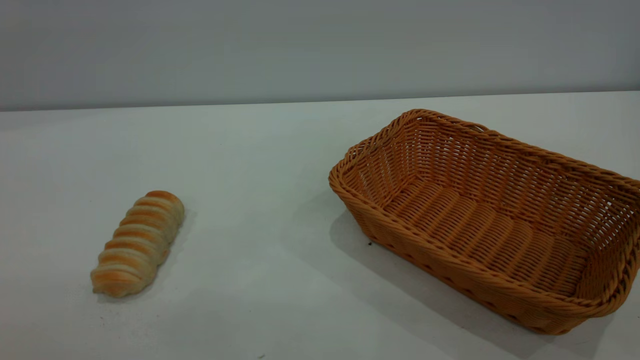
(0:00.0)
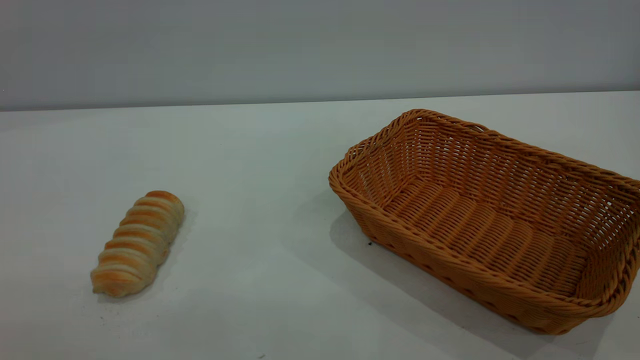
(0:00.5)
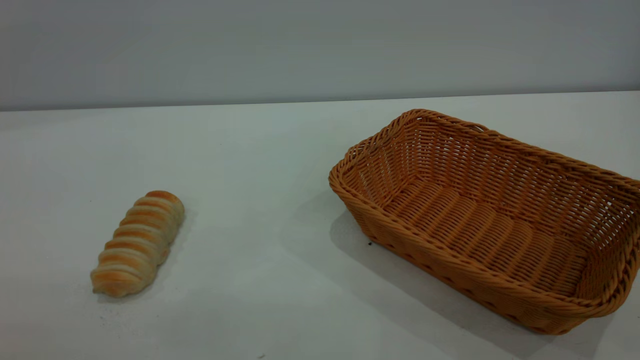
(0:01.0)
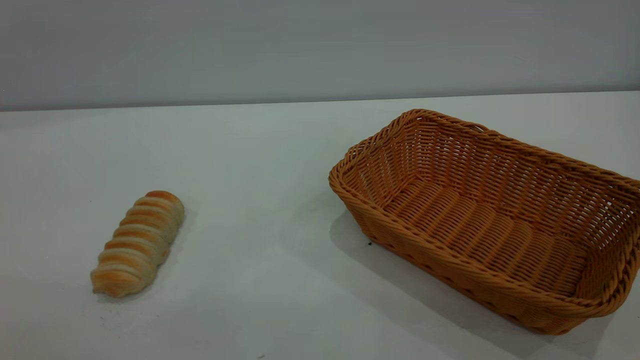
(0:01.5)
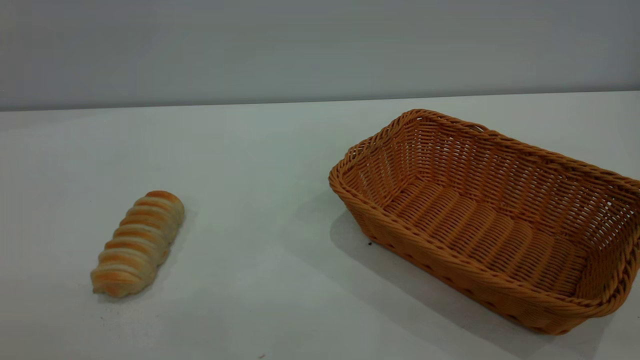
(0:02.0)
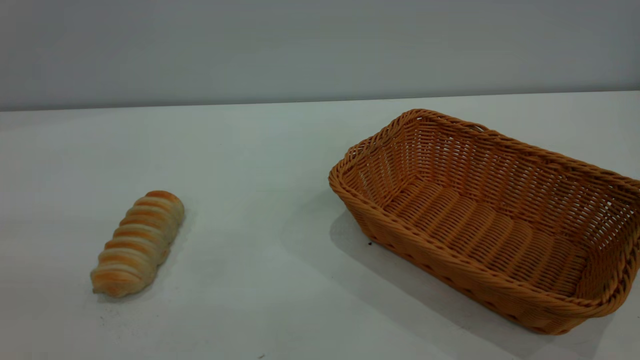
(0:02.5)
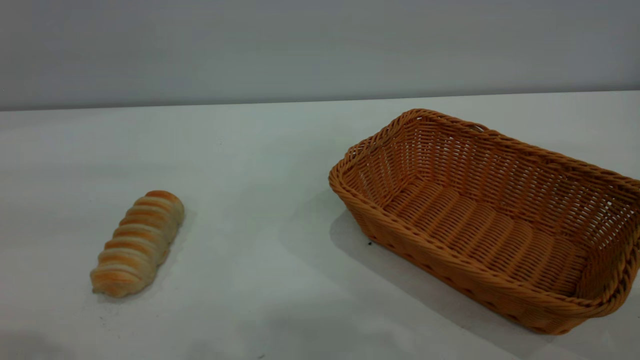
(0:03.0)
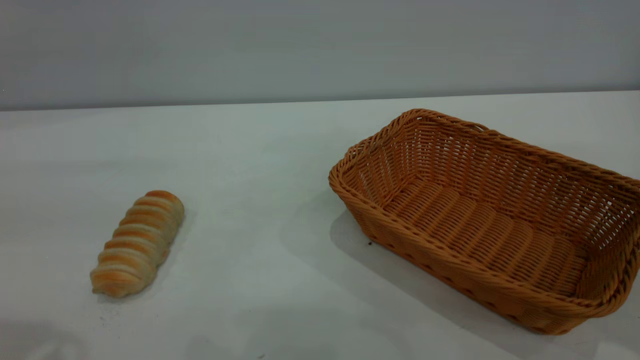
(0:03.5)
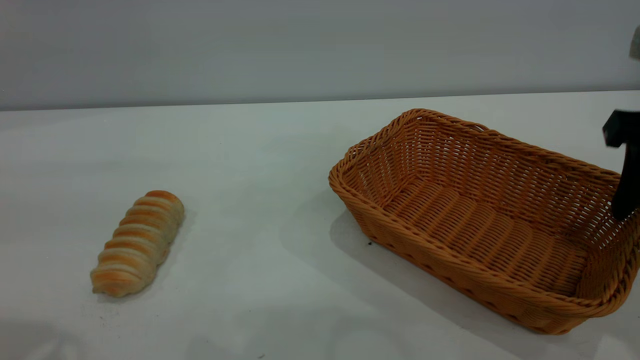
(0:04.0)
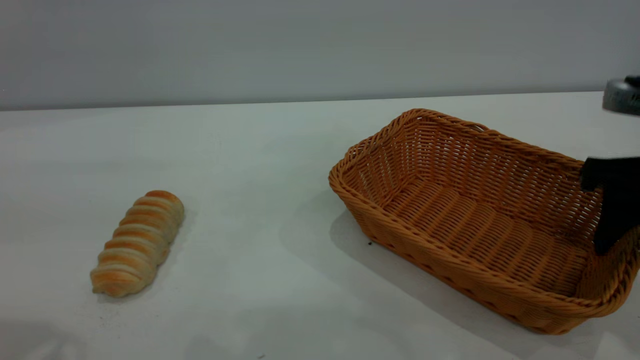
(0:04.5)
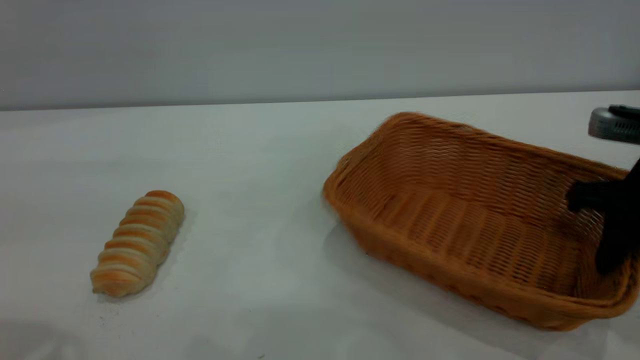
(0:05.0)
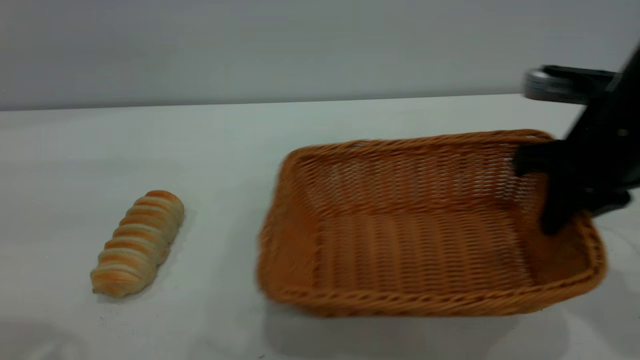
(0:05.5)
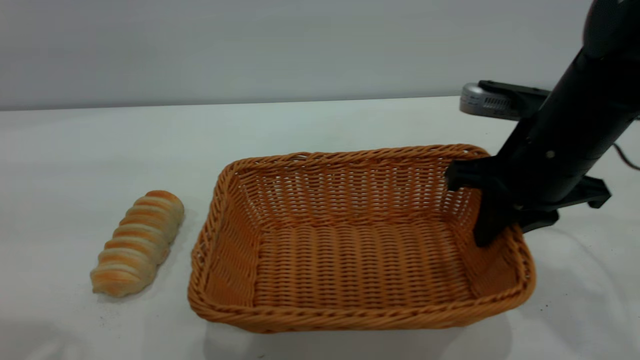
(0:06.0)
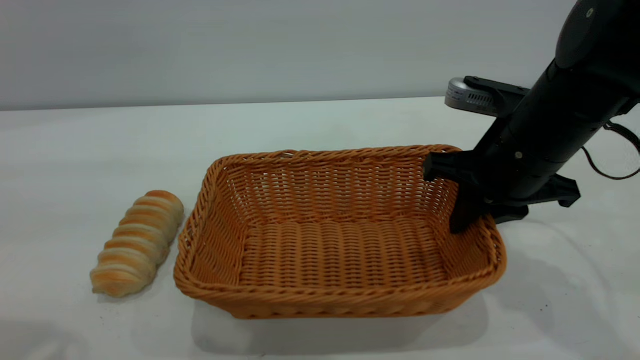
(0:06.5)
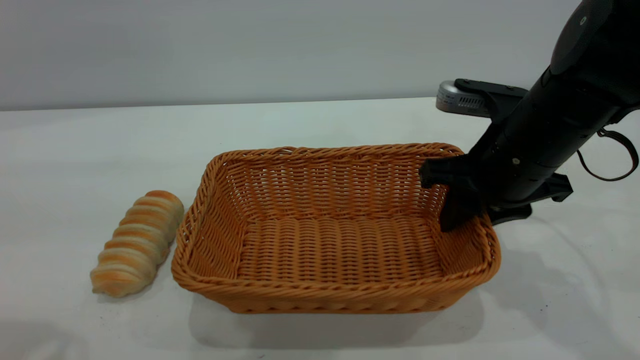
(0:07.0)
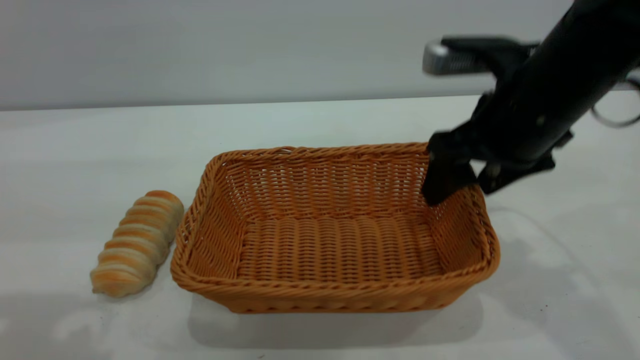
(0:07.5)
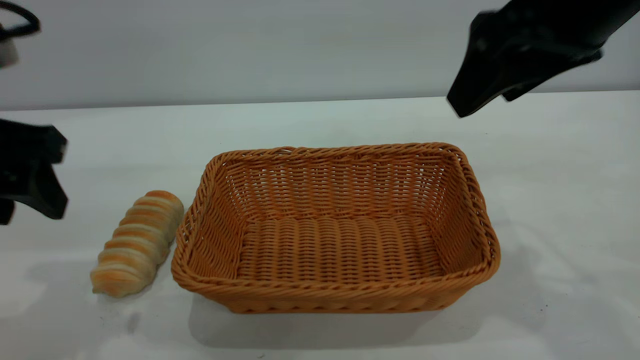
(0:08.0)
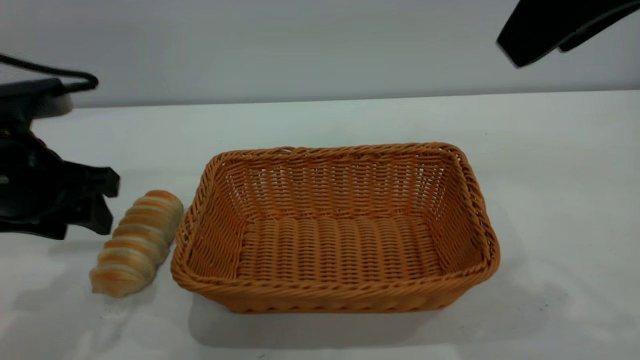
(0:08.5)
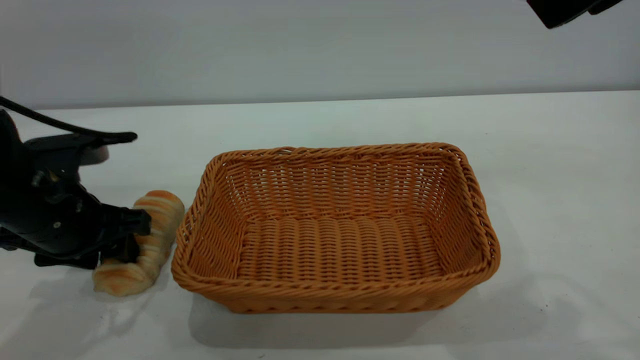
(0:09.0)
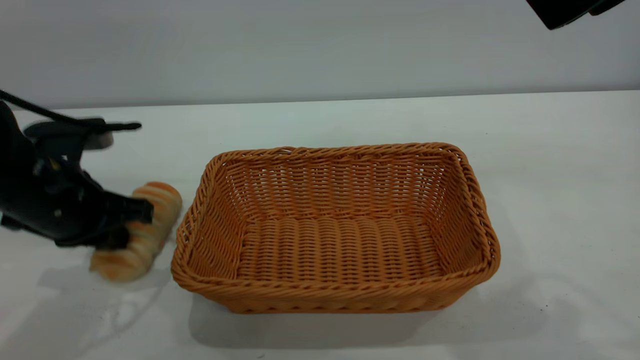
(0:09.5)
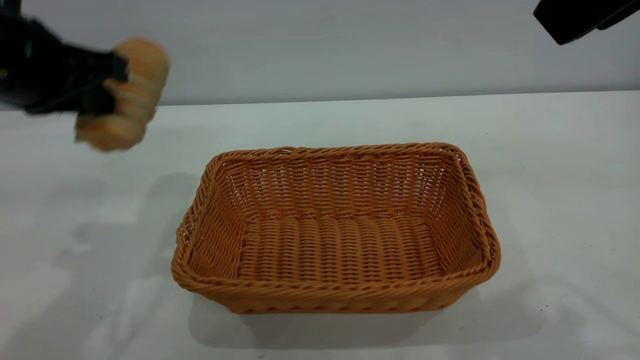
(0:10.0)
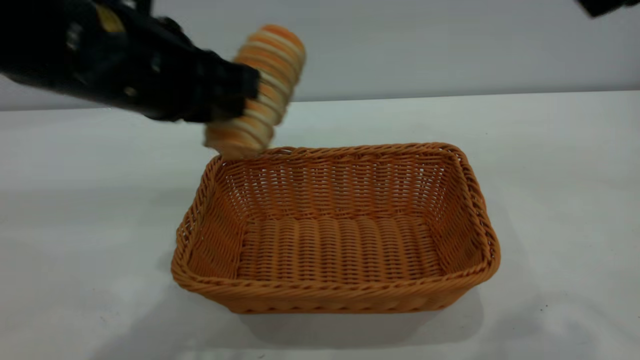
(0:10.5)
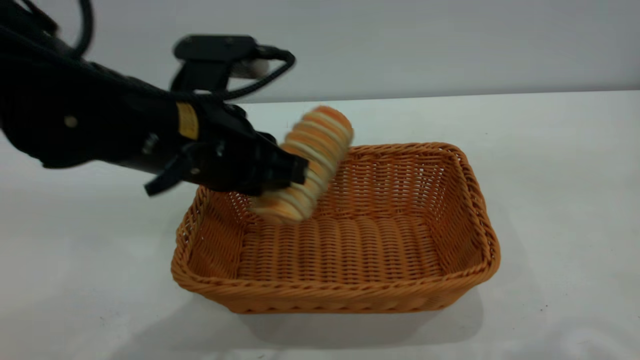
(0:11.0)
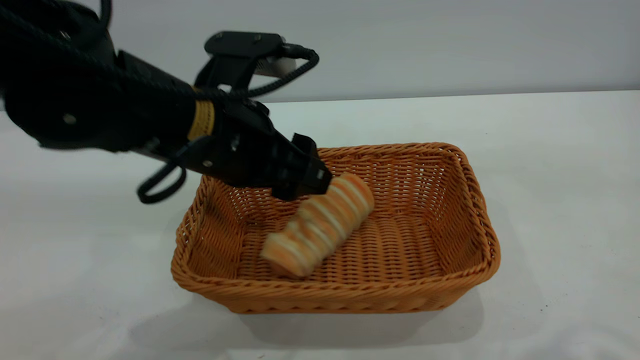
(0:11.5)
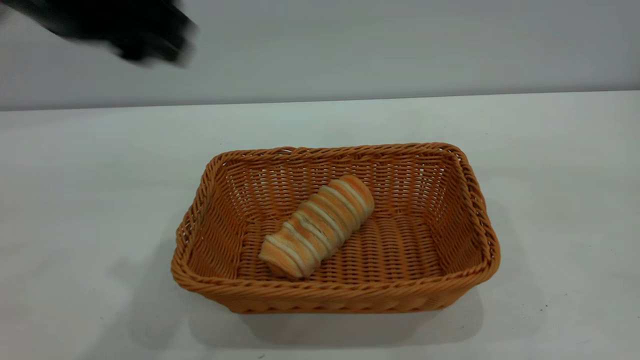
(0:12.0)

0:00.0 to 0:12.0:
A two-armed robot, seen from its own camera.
Task of the whole recording: One hand grasps the yellow basket and places it in the middle of the table, while the other hand picks up the long bread and puts it into the yellow basket.
Step, 0:00.0 to 0:07.5: Move the basket to the center of view.
Step, 0:10.0 to 0:11.5: place the bread into the basket.
0:02.0 to 0:04.0: The right gripper goes some 30 cm forward and downward.
0:04.0 to 0:06.0: The right gripper is displaced to the left and downward by roughly 10 cm, and closes.
0:06.0 to 0:08.0: The left gripper goes roughly 15 cm downward and forward. Meanwhile the right gripper heads upward, covering some 15 cm, and opens.
0:08.0 to 0:10.0: The right gripper is displaced upward and backward by roughly 10 cm. The left gripper travels downward and back again, about 10 cm each way, and closes up.
0:10.0 to 0:12.0: The left gripper goes roughly 10 cm upward and to the right, and opens its fingers; the right gripper travels backward, upward and to the right by about 10 cm.

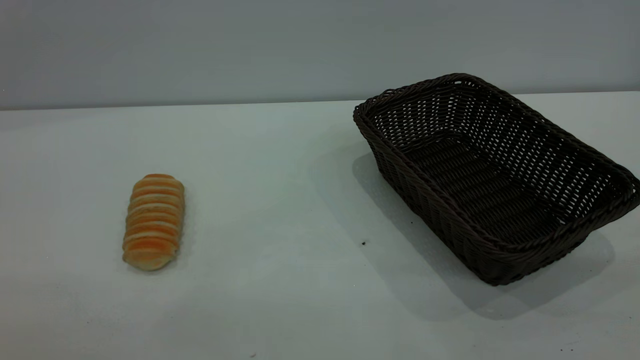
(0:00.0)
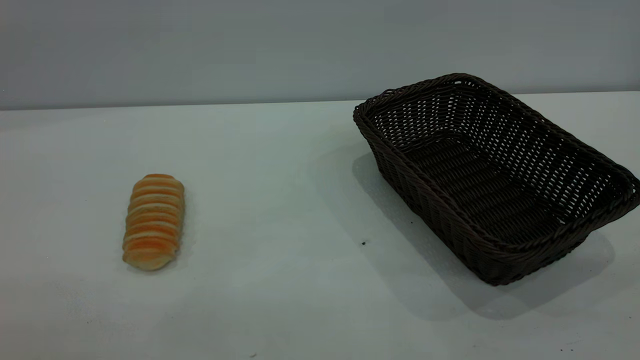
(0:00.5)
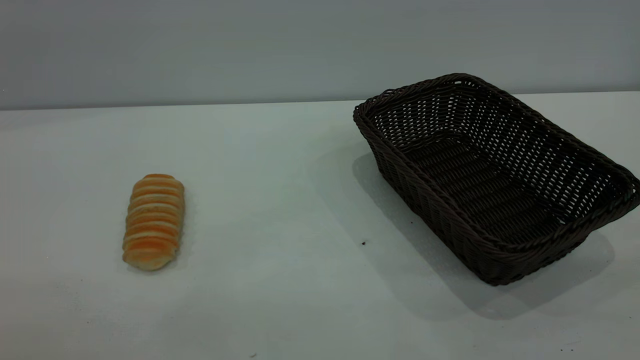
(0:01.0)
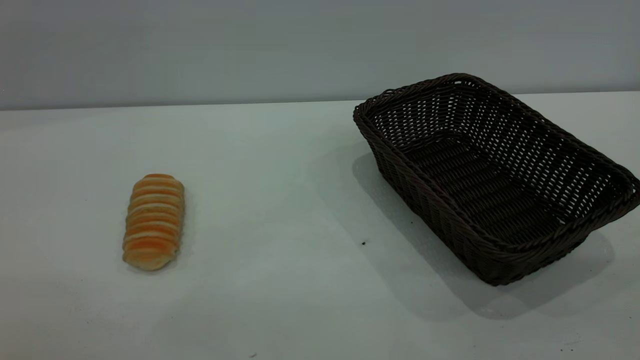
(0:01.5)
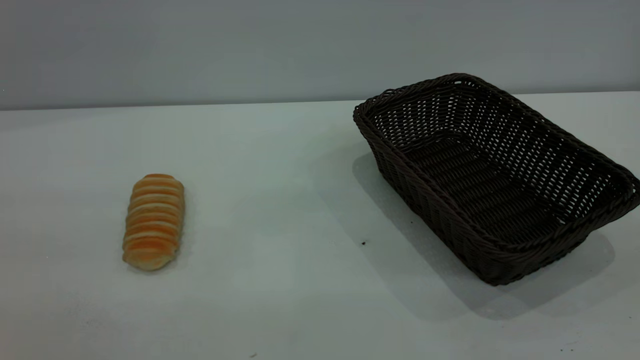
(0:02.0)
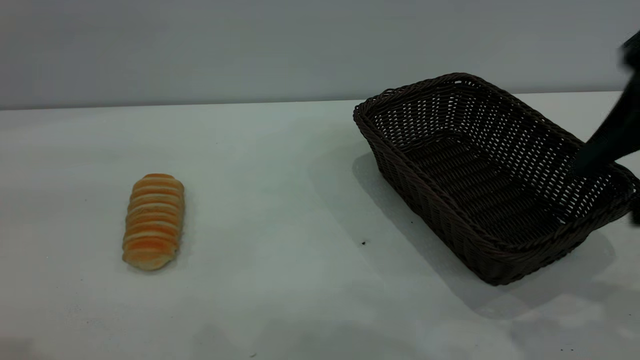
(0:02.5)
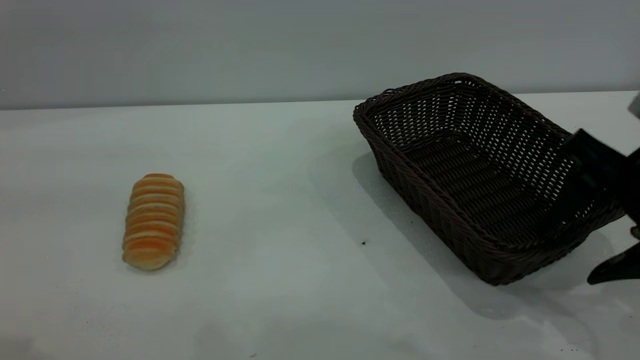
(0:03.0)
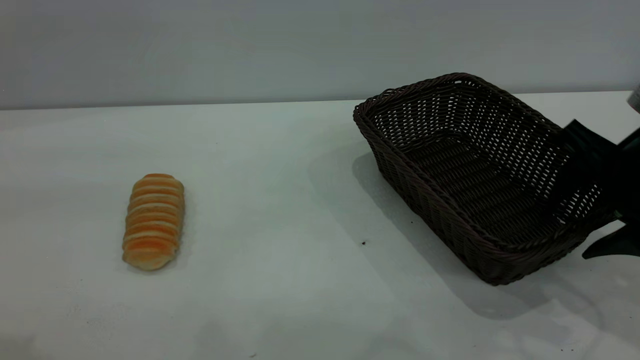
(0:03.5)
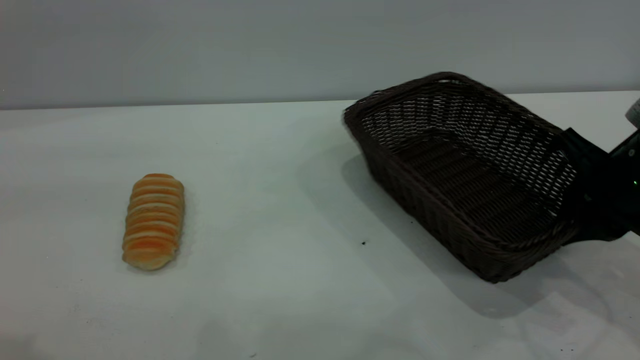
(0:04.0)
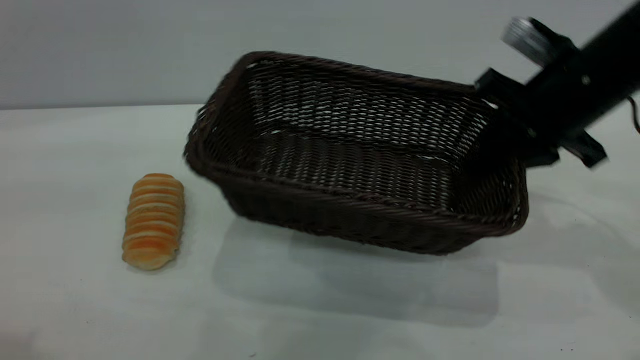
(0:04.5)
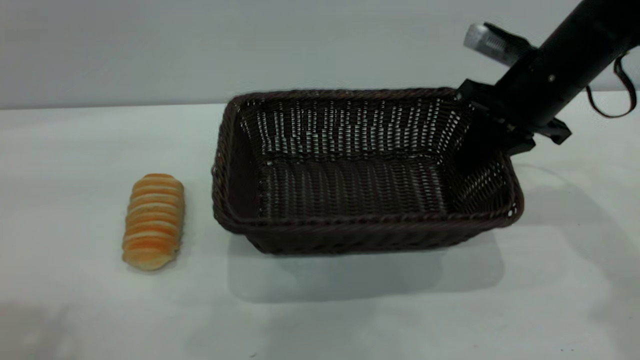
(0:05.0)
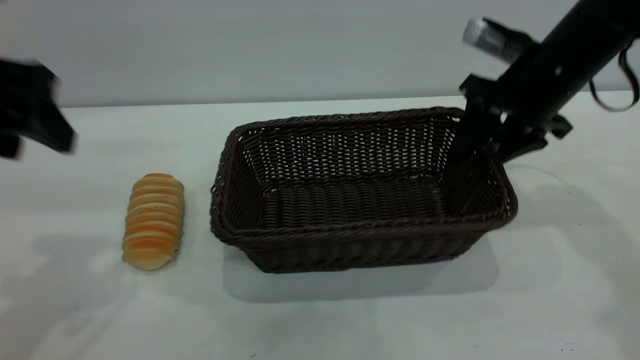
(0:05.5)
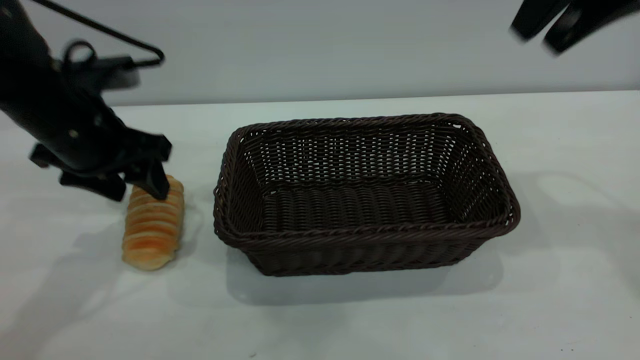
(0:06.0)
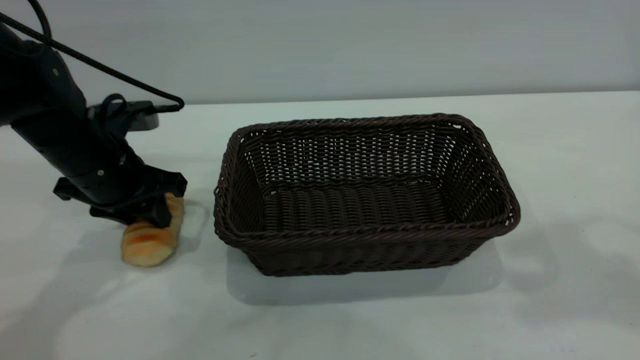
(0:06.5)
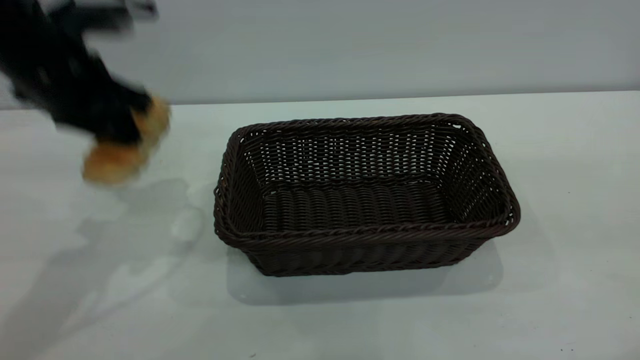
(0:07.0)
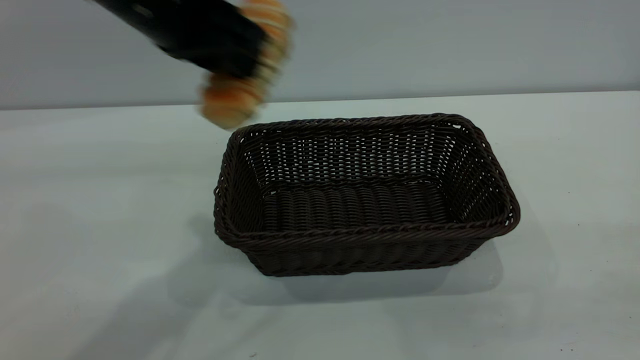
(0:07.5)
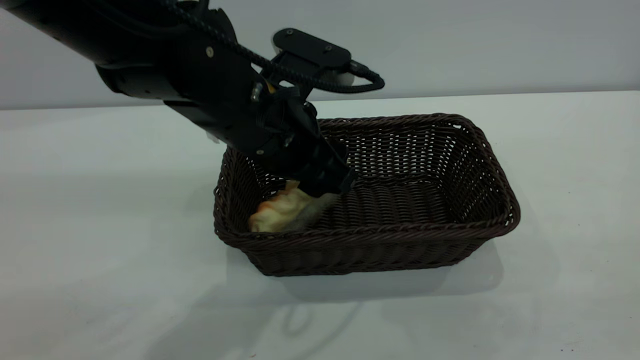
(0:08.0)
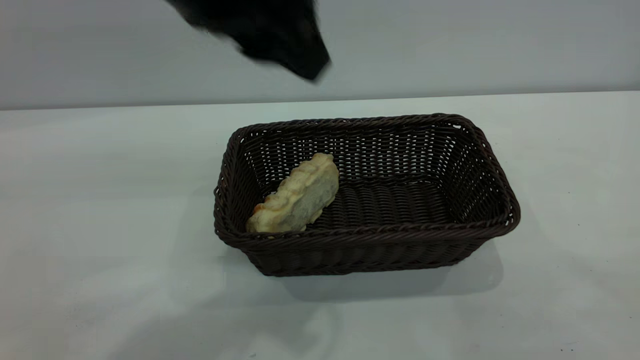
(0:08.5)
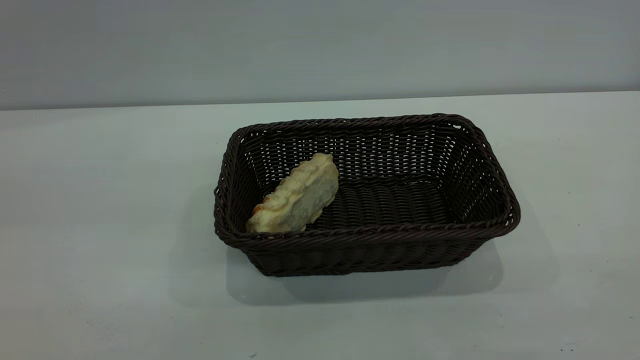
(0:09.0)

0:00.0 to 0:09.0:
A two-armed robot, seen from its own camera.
Task of the whole recording: One hand grasps the black basket and places it in the middle of the table, while the other hand picks up the long bread and puts it into the black basket.
Step, 0:00.0 to 0:05.5: Move the basket to the center of view.
Step, 0:07.0 to 0:08.0: place the bread into the basket.
0:02.0 to 0:04.5: The left gripper moves forward, some 10 cm. Meanwhile the right gripper is displaced forward and downward by roughly 35 cm, and closes.
0:04.5 to 0:07.0: The left gripper goes about 25 cm forward and downward, and closes up. The right gripper shifts about 30 cm backward and upward, and opens.
0:07.0 to 0:09.0: The right gripper shifts about 15 cm backward; the left gripper shifts approximately 30 cm backward and upward, and opens up.
